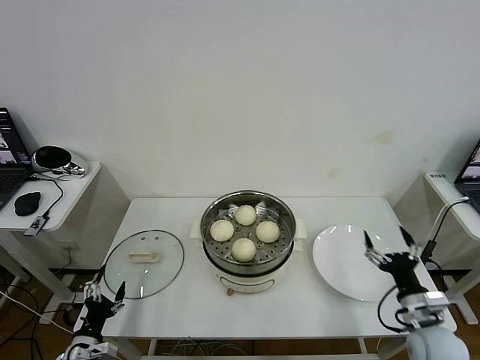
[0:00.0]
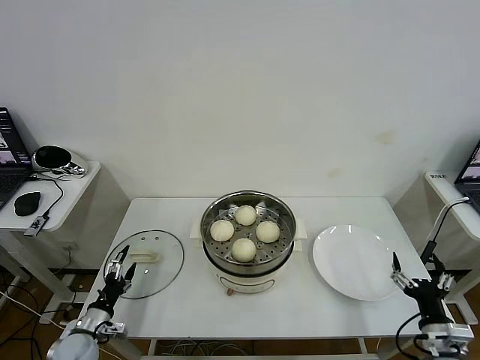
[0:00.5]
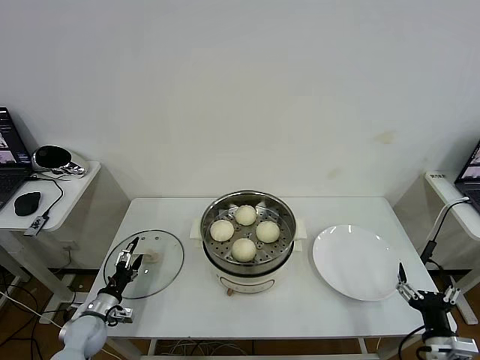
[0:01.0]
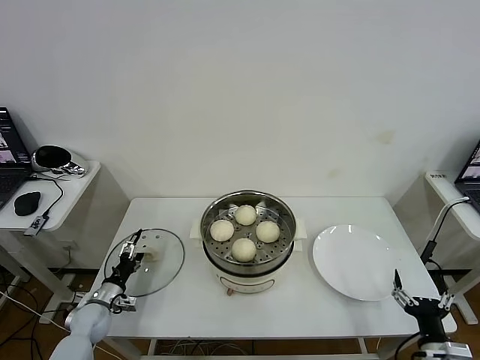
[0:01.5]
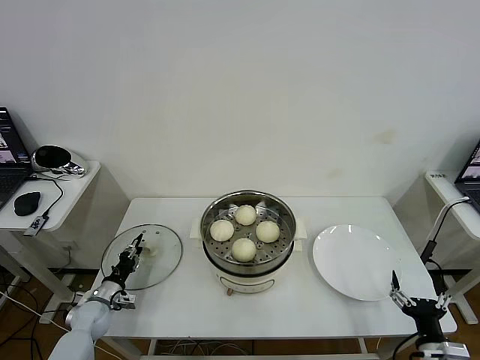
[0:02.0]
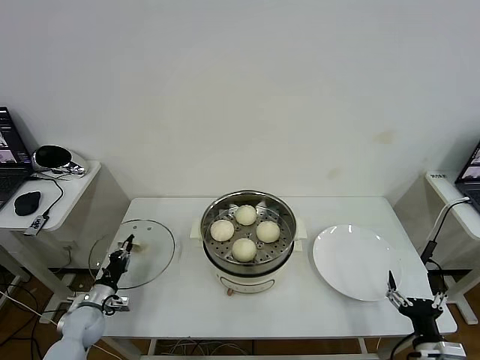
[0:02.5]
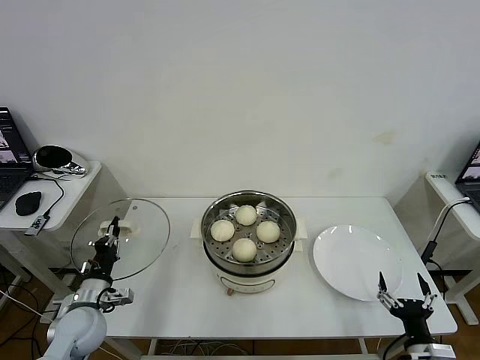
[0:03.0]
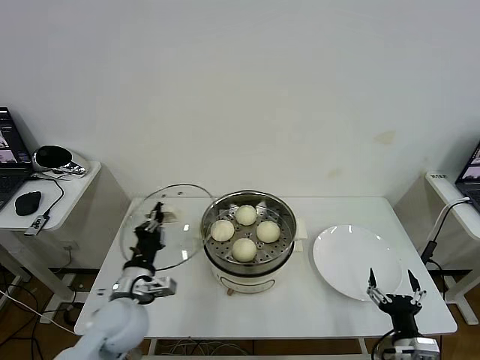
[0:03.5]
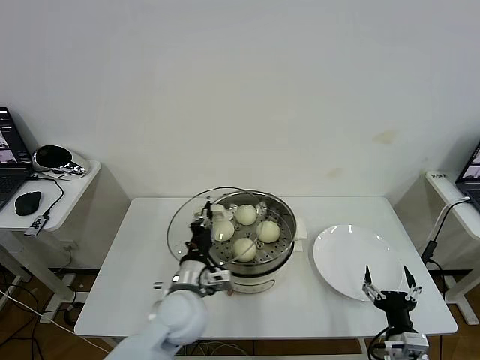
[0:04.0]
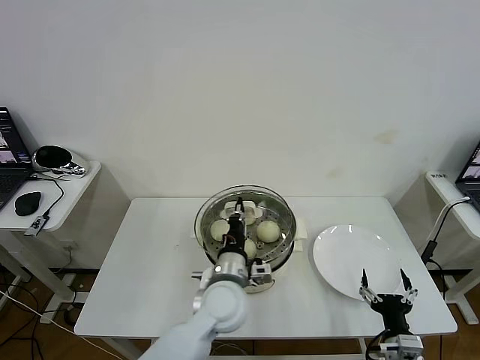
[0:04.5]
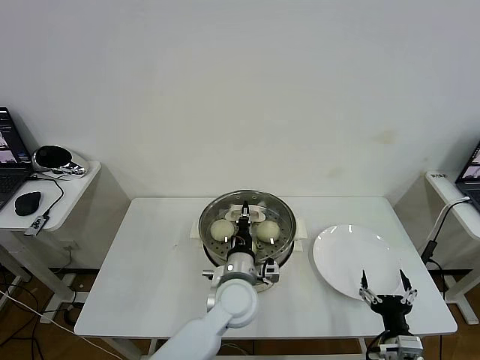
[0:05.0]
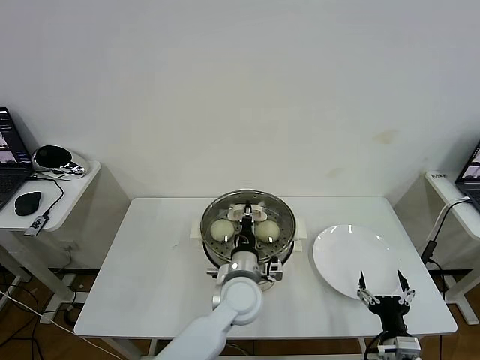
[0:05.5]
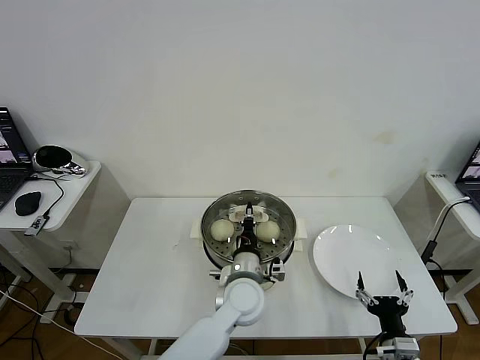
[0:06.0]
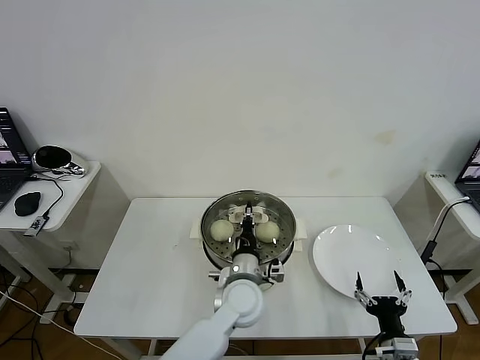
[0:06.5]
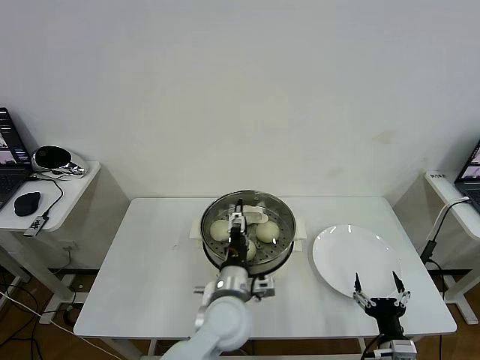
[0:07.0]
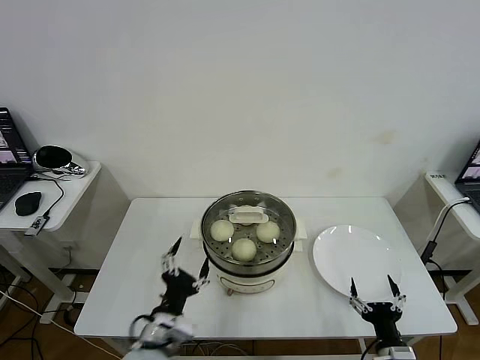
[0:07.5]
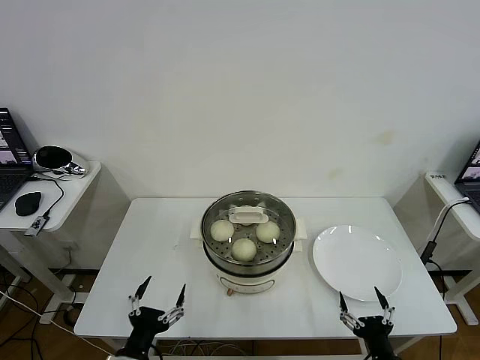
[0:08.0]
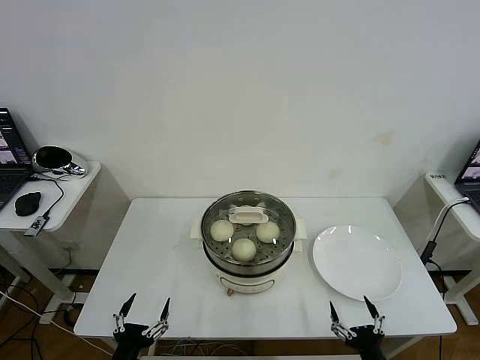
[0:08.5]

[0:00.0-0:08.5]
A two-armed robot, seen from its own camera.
Task of the whole recording: take steamed baozi put them in steamer then cover it.
Step, 0:00.0 to 0:02.0: Grasp the pot lid with left gripper.
Step, 0:02.5 to 0:07.0: Place the pot lid on the steamer with left gripper.
0:00.0 to 0:02.0: The right gripper shifts approximately 10 cm backward, while the left gripper is displaced forward by about 15 cm, and closes its fingers.
0:02.0 to 0:04.0: The right gripper shifts approximately 5 cm to the left; the left gripper travels to the right and upward by some 35 cm, and closes.
0:04.0 to 0:06.5: The left gripper shifts about 15 cm to the right.
0:06.5 to 0:08.5: The left gripper shifts approximately 35 cm to the left and backward, and opens. The right gripper goes about 5 cm backward.
